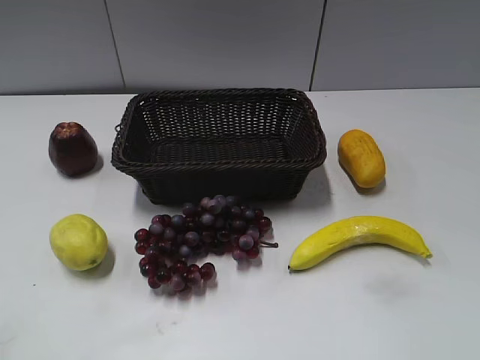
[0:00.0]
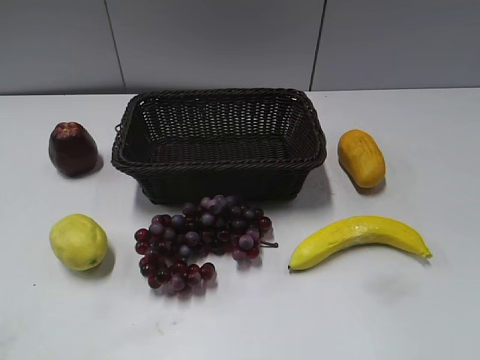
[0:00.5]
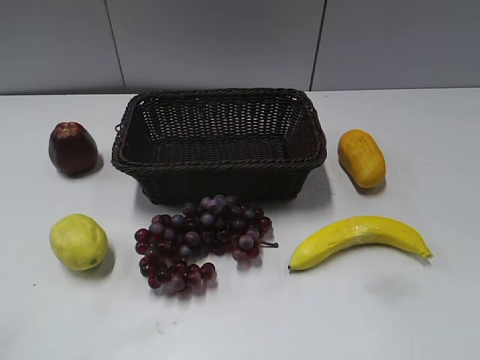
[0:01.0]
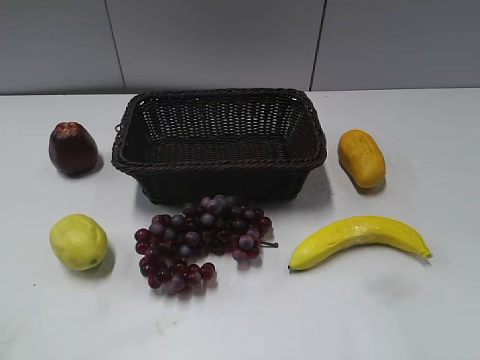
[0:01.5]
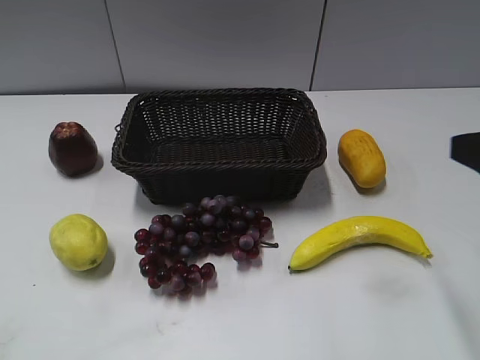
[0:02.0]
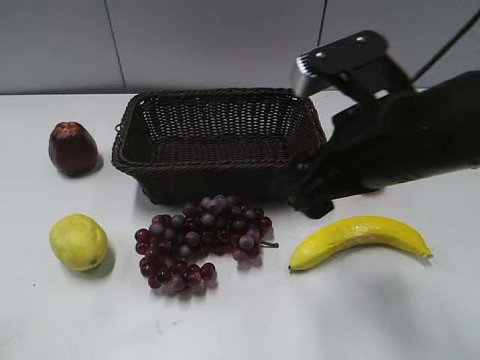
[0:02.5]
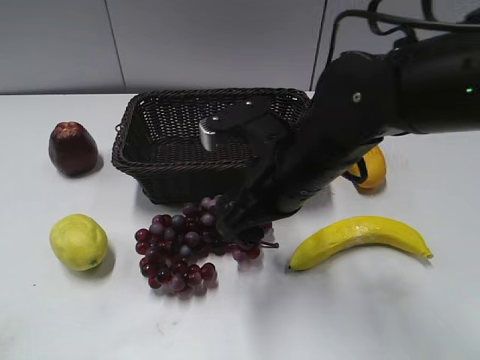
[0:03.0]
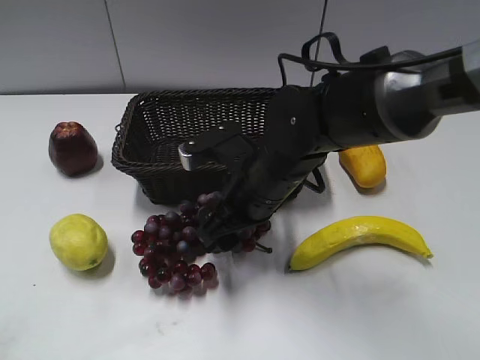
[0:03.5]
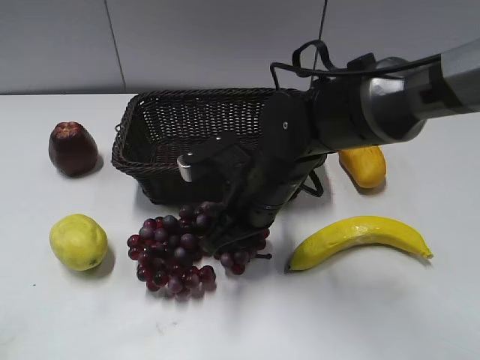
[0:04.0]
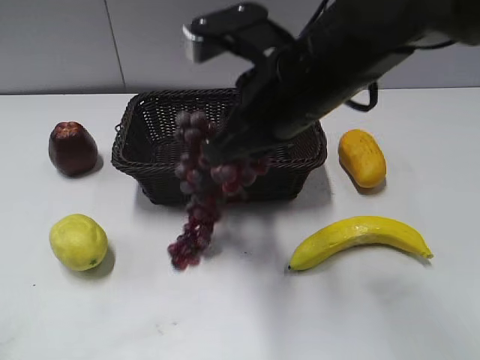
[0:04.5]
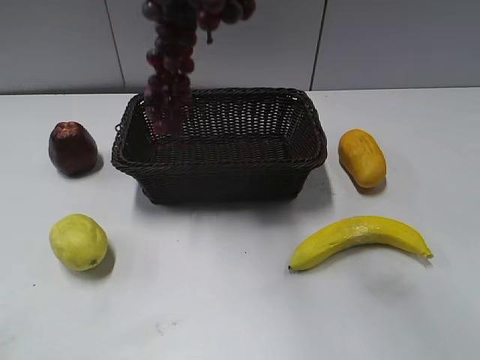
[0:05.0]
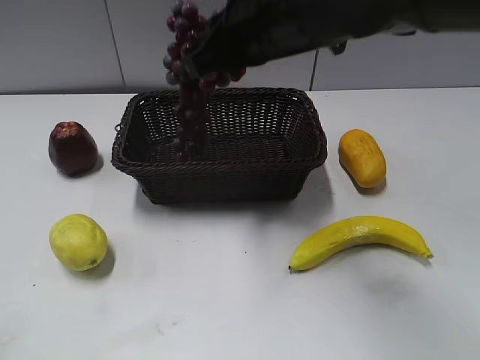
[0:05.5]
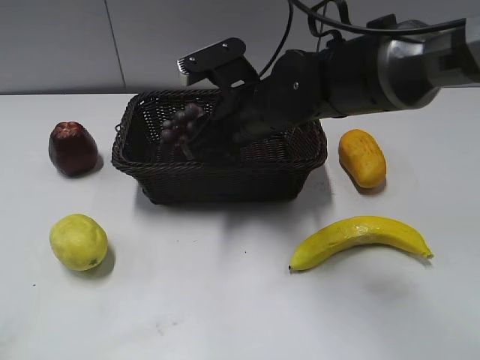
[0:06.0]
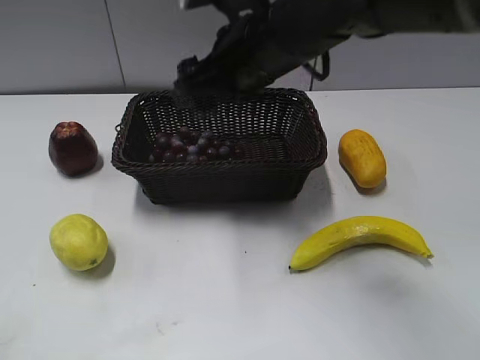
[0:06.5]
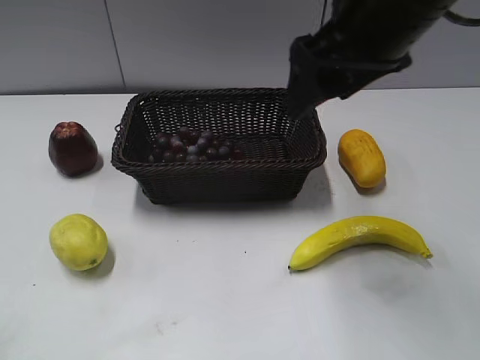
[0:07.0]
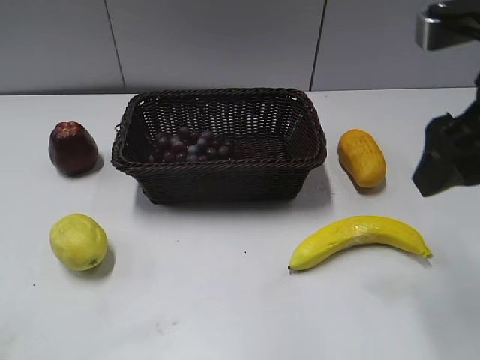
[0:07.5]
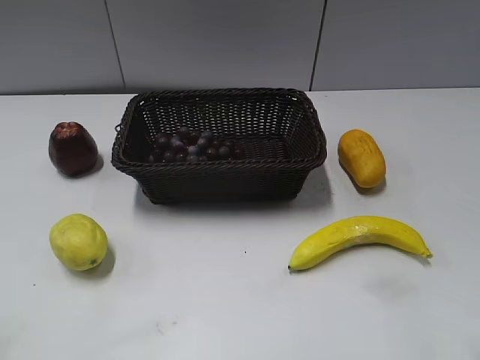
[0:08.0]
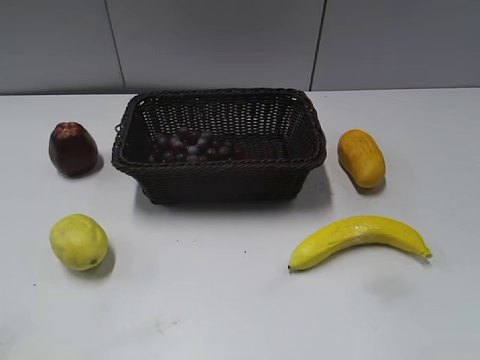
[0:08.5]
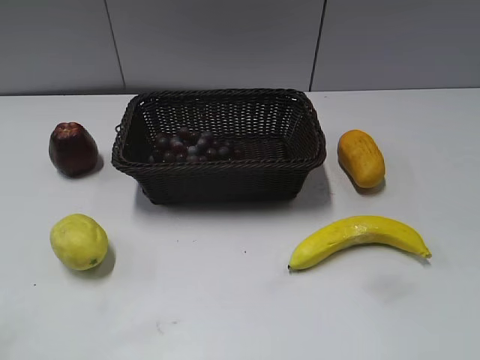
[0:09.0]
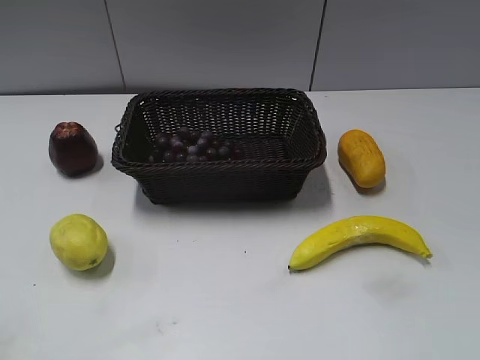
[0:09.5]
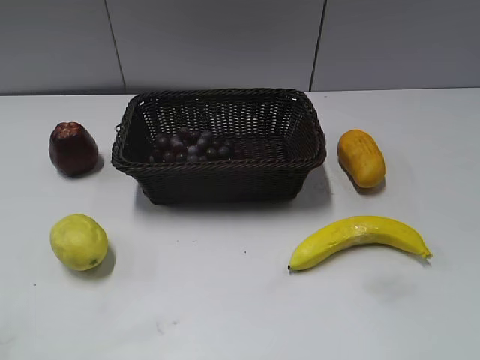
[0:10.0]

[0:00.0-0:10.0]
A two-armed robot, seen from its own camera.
Step, 0:02.0 to 0:04.0: Grasp the grape with right gripper.
Step, 0:04.5 to 0:06.0: Place the grape in the basket with right gripper.
0:02.0 to 0:04.0: The right gripper travels to the left, downward and forward by some 30 cm, and closes up.
0:04.0 to 0:06.0: The right gripper goes approximately 5 cm forward, and reaches roughly 25 cm upward, then returns.
0:06.0 to 0:08.0: The right gripper is displaced to the right, backward and upward by some 30 cm, and opens up.

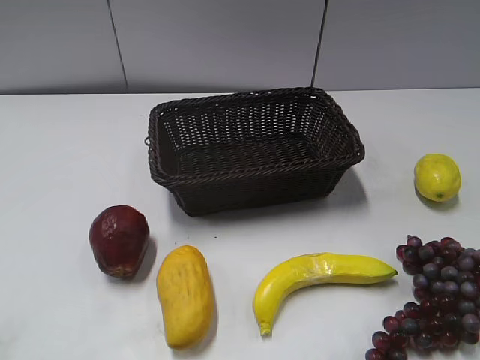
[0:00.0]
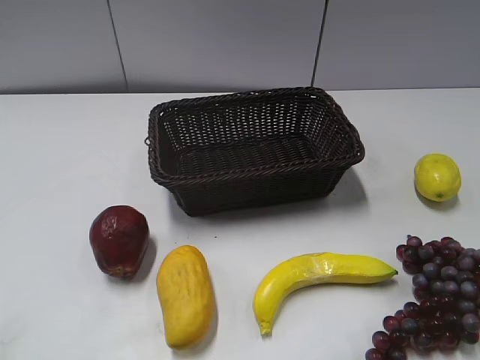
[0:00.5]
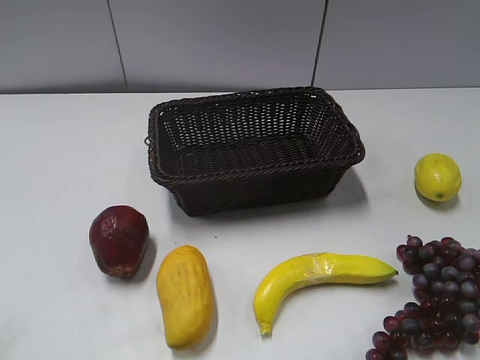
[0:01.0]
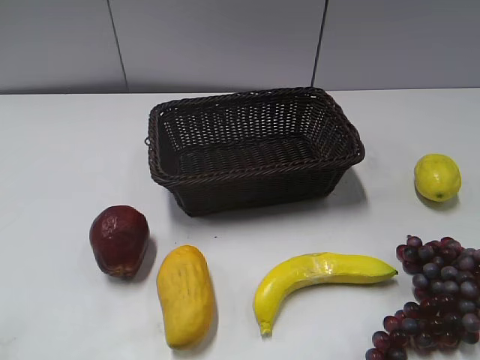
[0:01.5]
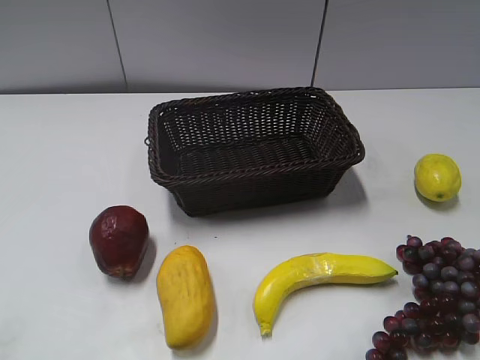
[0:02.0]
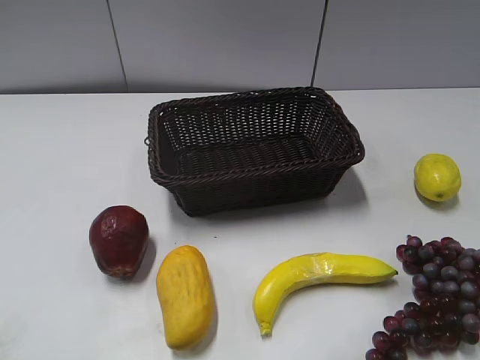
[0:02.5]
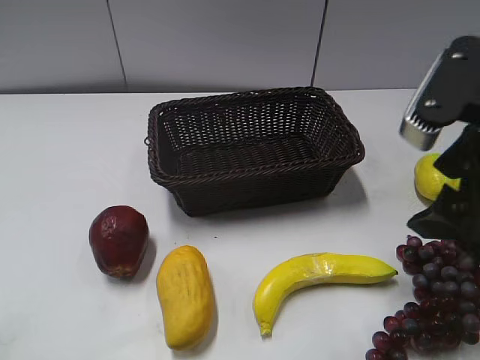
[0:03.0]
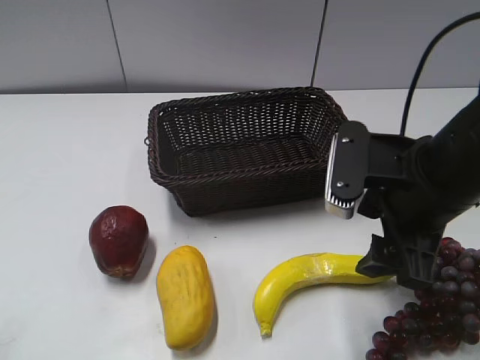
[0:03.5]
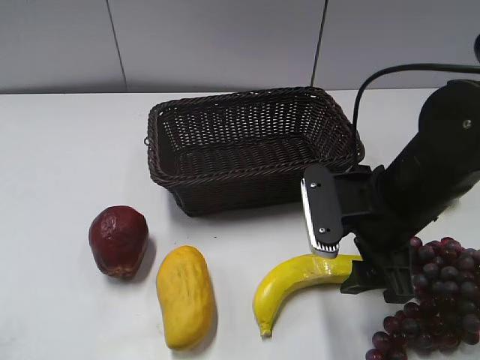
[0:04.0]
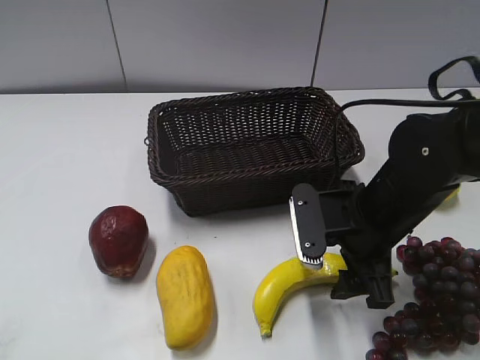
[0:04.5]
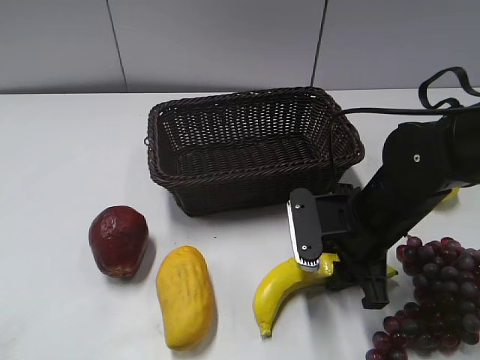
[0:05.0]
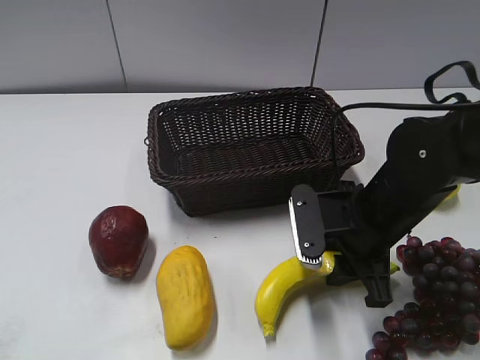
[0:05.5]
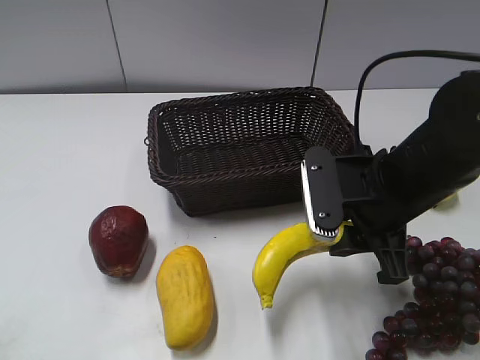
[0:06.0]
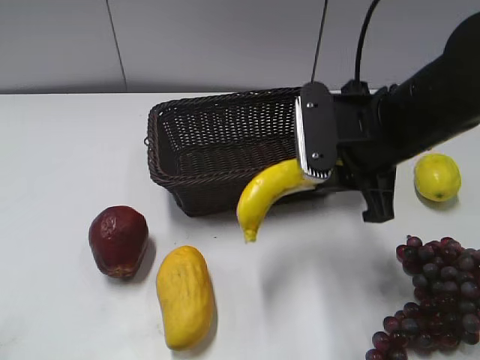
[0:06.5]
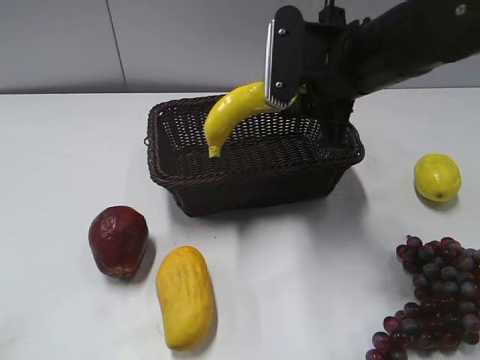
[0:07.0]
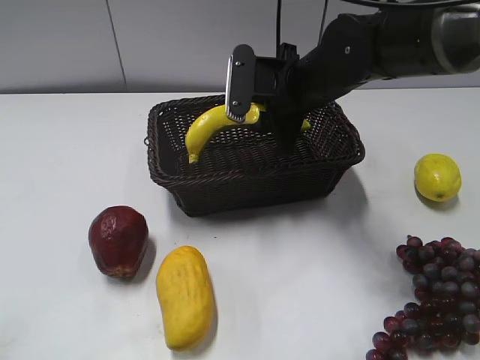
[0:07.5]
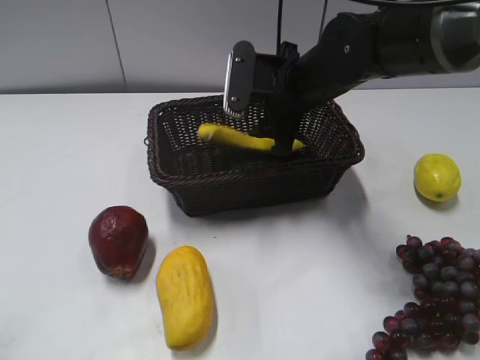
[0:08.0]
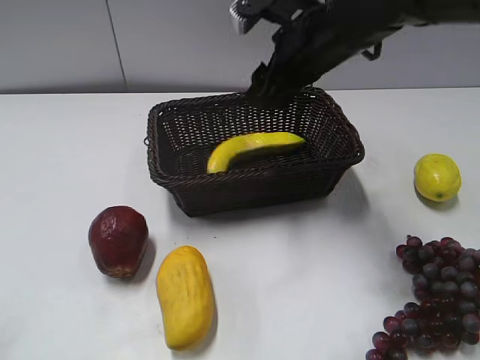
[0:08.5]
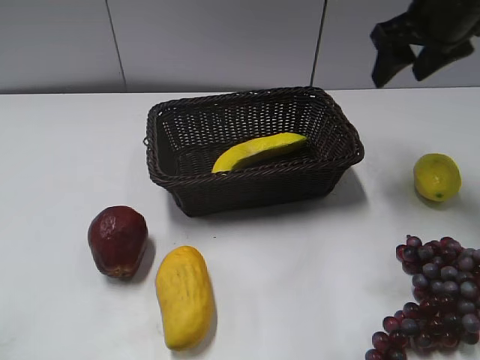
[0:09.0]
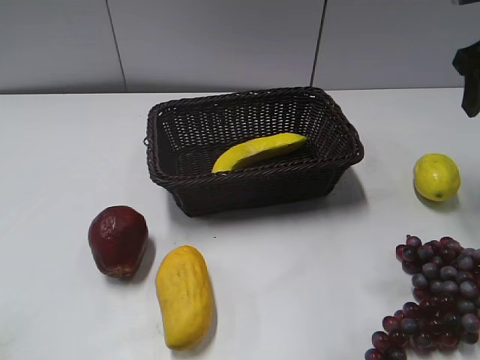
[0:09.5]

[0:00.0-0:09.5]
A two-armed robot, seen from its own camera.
Step, 0:02.5 to 0:05.5: Grasp the banana with right gripper.
Step, 0:06.0 to 0:08.0: Place the banana in the basket with right gripper.
0:02.0 to 0:04.0: The right gripper goes roughly 30 cm forward, to the left and downward.
0:04.0 to 0:05.5: The right gripper closes.
0:05.5 to 0:07.5: The right gripper heads forward, upward and to the left, covering some 15 cm.
0:07.5 to 0:09.5: The right gripper goes about 20 cm to the right and upward, and opens up.

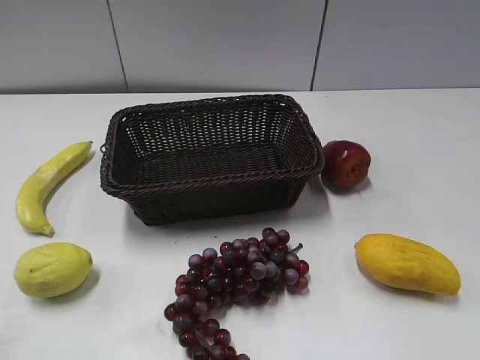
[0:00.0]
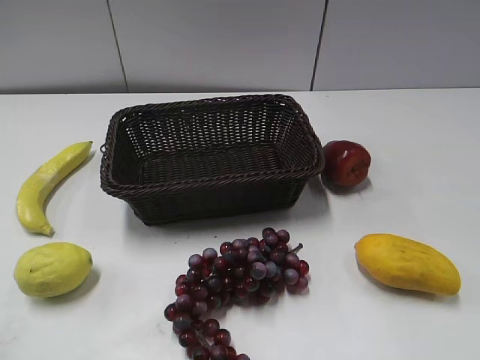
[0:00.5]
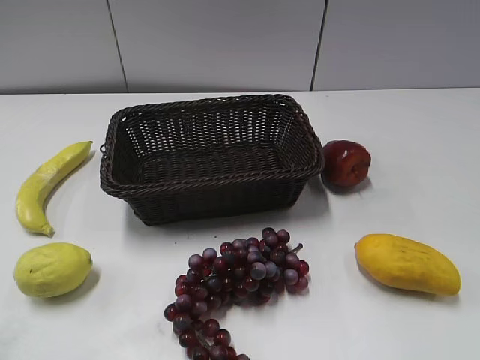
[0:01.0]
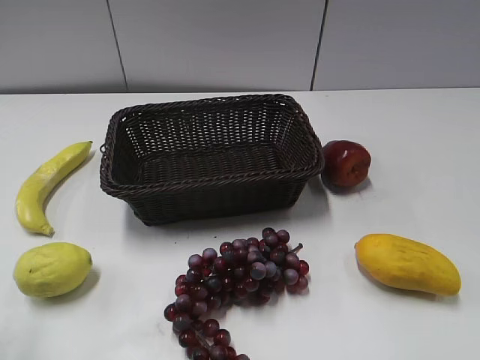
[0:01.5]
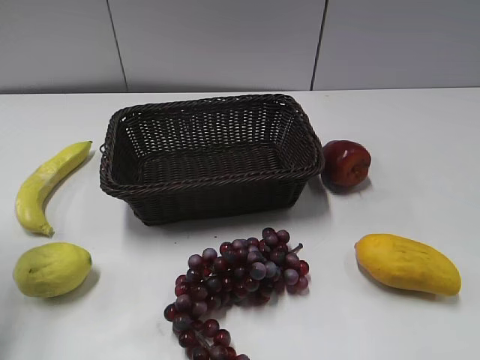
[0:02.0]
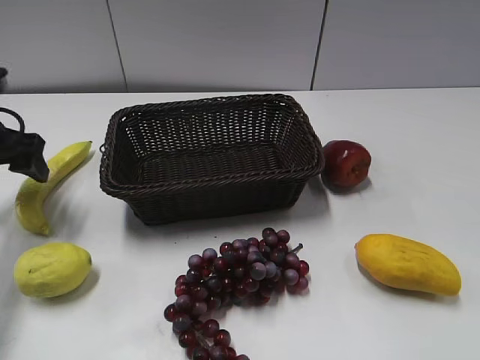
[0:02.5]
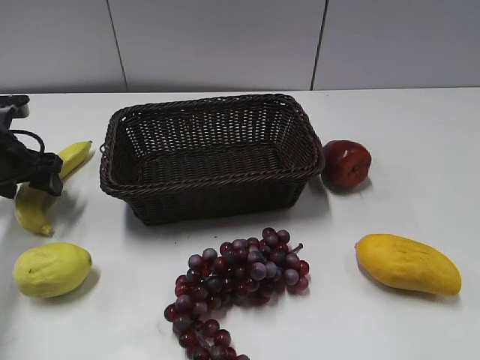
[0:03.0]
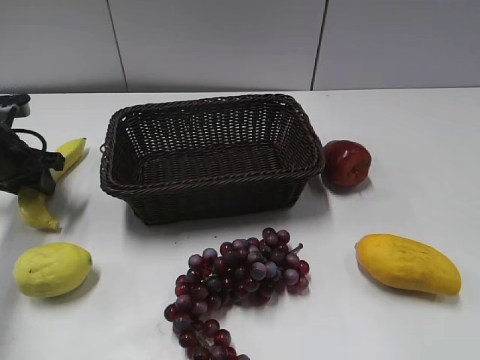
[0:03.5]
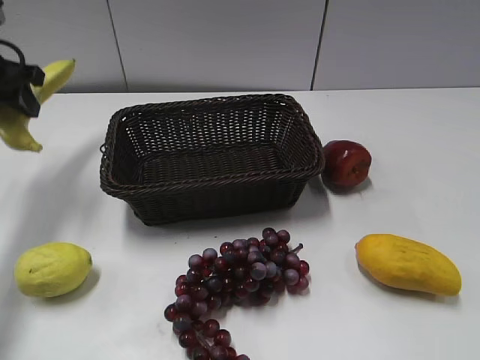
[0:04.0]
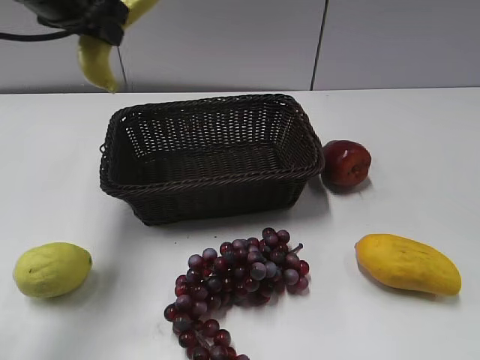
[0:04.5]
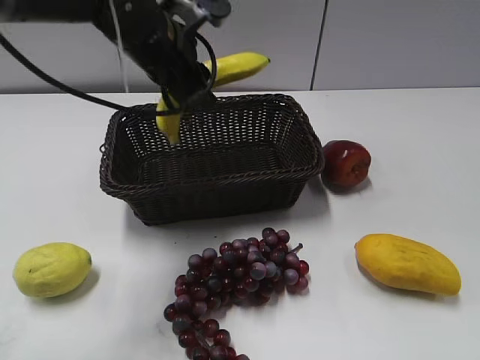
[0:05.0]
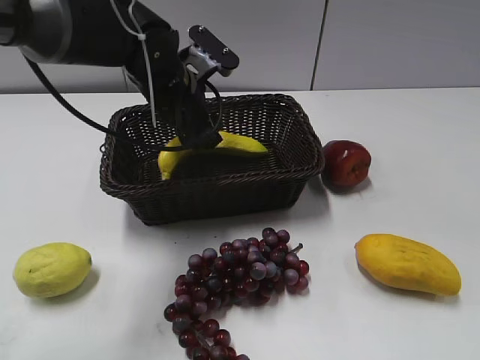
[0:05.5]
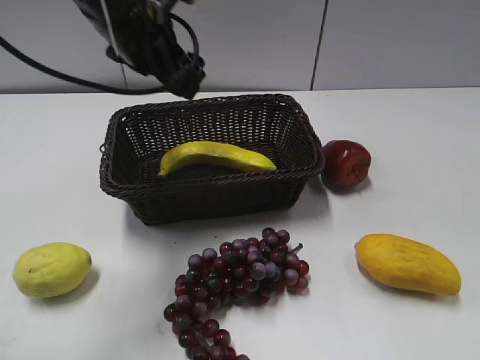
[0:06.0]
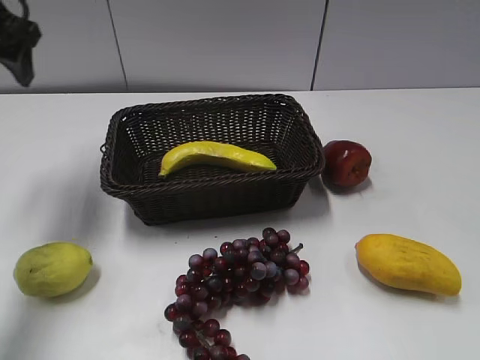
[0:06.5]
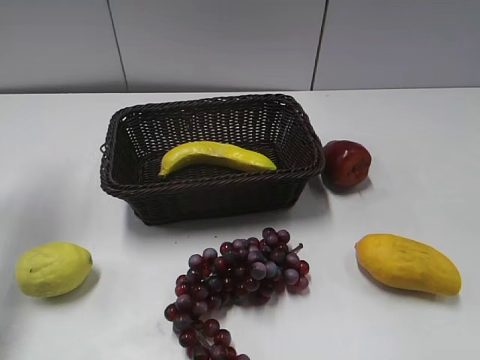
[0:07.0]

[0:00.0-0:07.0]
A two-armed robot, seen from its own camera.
Step, 0:02.5 to 0:03.5: Grasp the banana with left gripper.
Step, 0:04.0 to 0:06.0: Place the banana in the basket with left gripper.
0:02.0 to 0:03.5: The left gripper moves downward and forward, about 20 cm, and closes up.
0:03.5 to 0:05.0: The left gripper is displaced to the right and upward by roughly 25 cm.
0:05.0 to 0:07.0: The left gripper is displaced to the left by approximately 25 cm, and opens its fingers.
